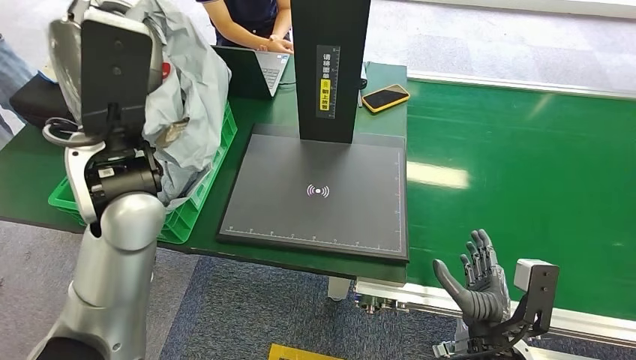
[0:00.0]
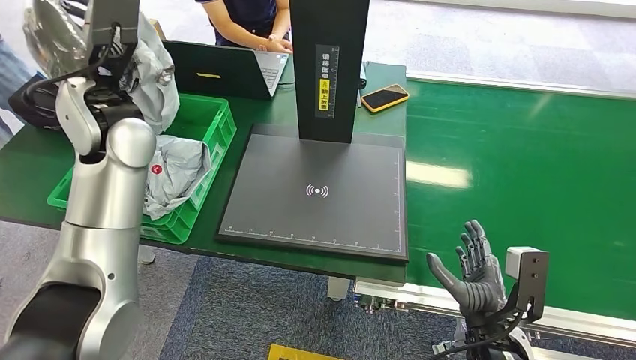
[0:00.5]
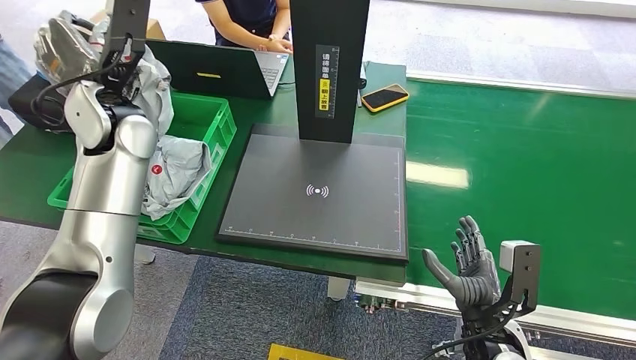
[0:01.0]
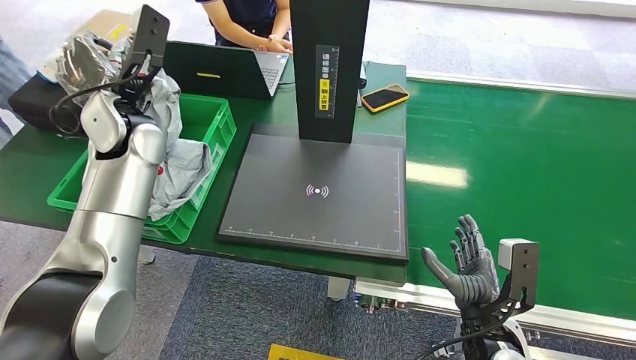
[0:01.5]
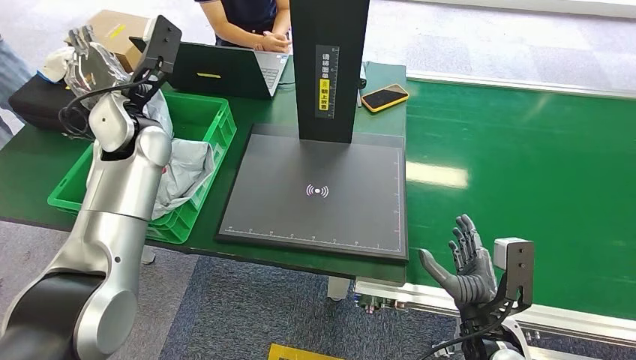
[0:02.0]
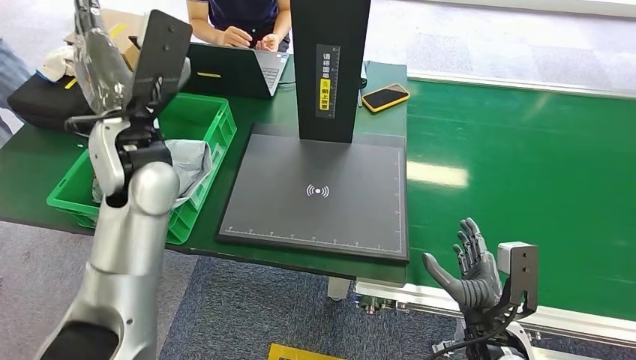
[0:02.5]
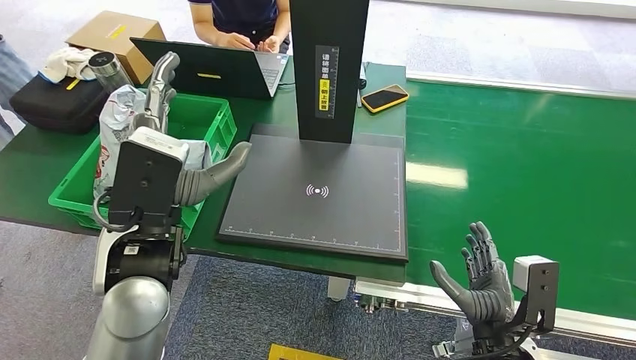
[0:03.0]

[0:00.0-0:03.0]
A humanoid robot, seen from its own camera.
Step, 0:00.0 to 0:03.0: Place the package into the parcel locker.
